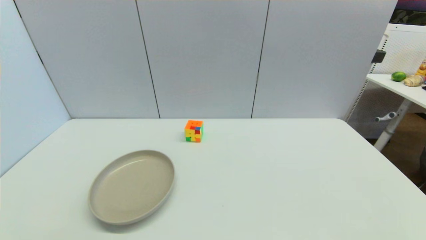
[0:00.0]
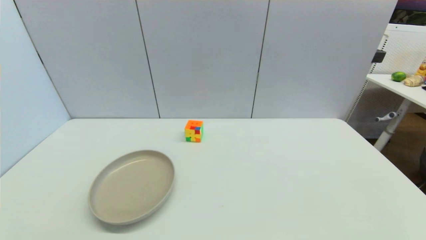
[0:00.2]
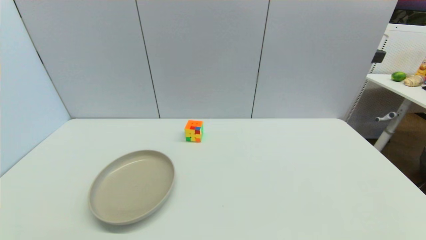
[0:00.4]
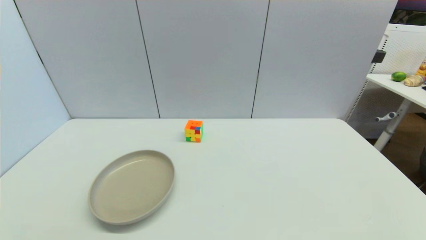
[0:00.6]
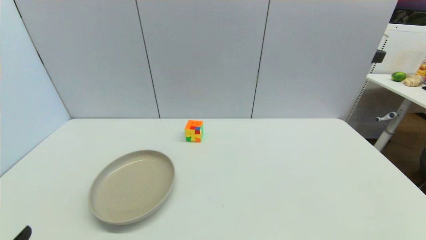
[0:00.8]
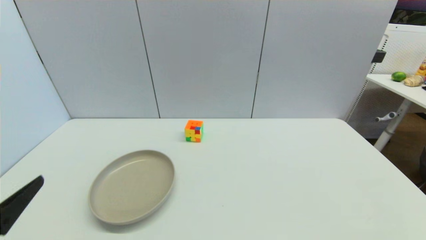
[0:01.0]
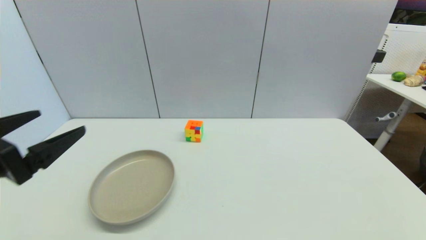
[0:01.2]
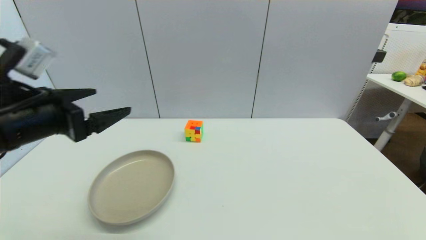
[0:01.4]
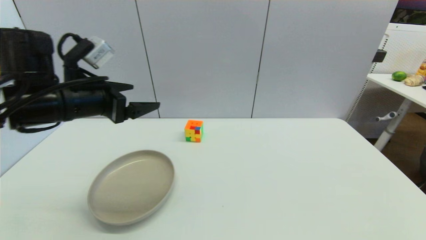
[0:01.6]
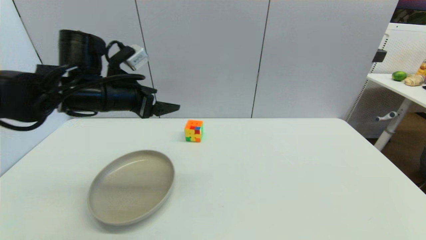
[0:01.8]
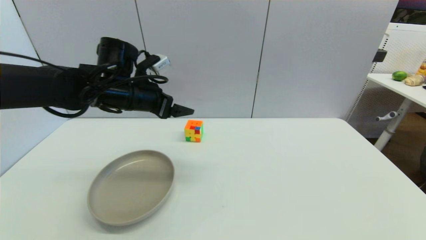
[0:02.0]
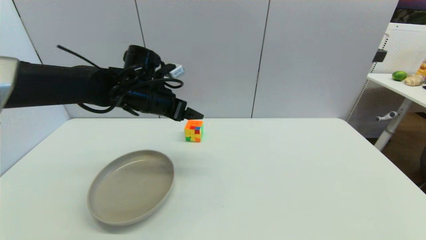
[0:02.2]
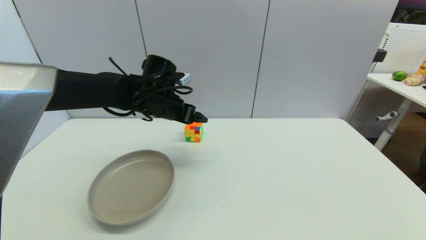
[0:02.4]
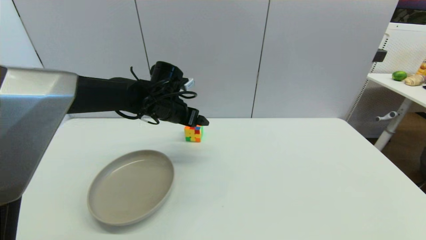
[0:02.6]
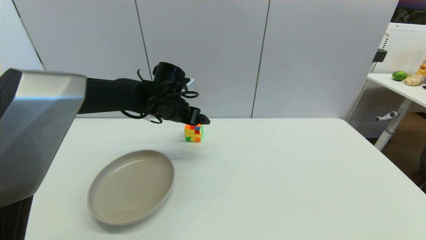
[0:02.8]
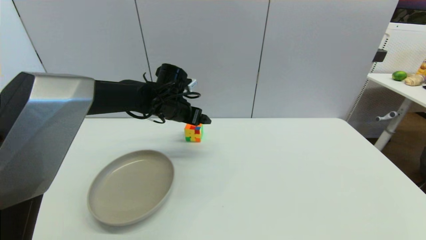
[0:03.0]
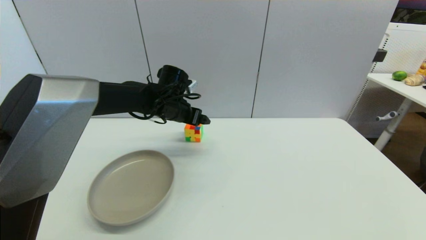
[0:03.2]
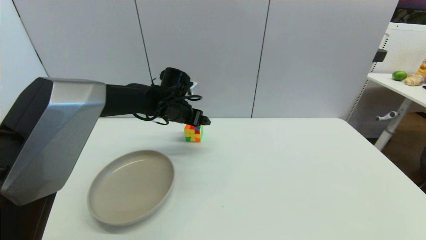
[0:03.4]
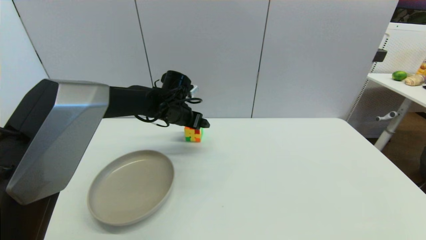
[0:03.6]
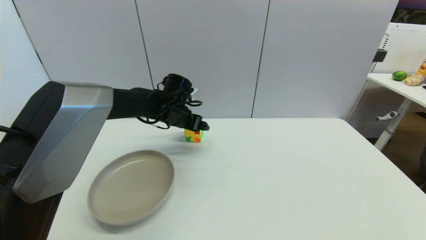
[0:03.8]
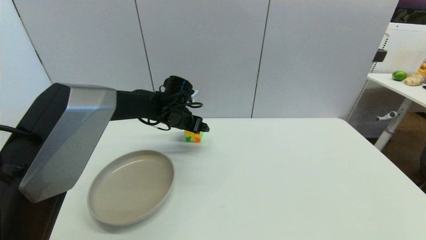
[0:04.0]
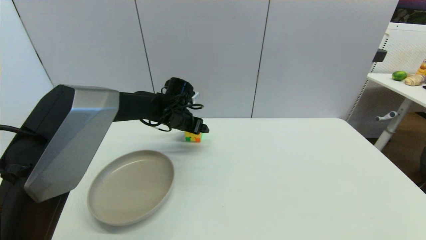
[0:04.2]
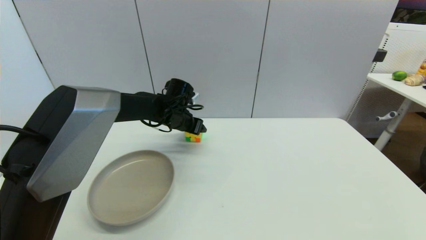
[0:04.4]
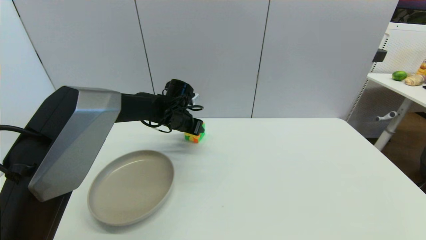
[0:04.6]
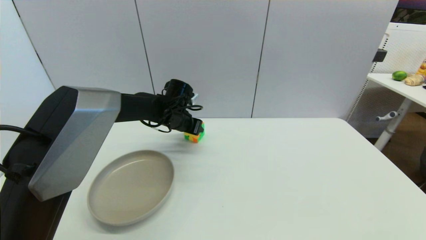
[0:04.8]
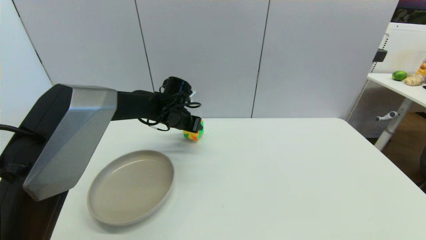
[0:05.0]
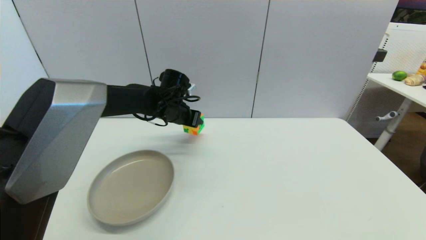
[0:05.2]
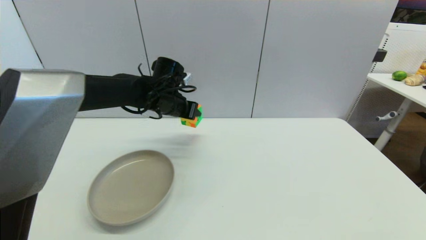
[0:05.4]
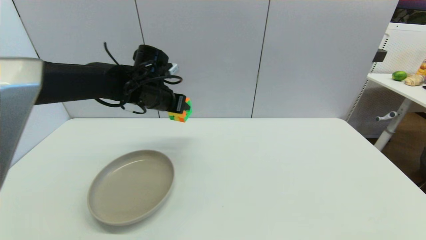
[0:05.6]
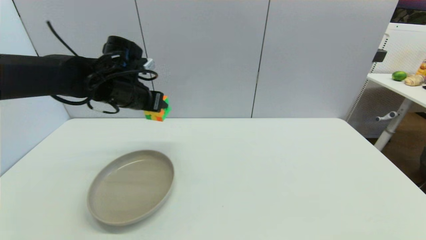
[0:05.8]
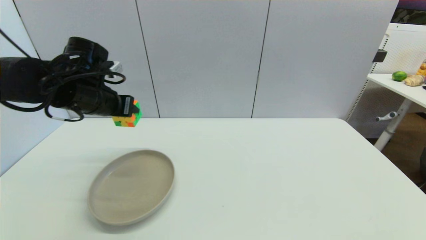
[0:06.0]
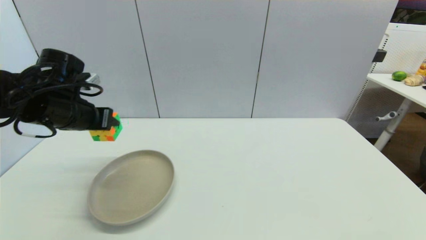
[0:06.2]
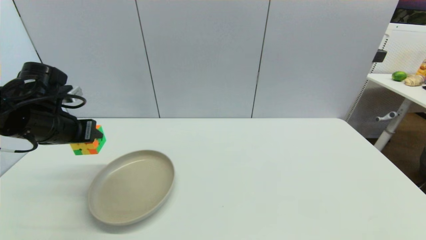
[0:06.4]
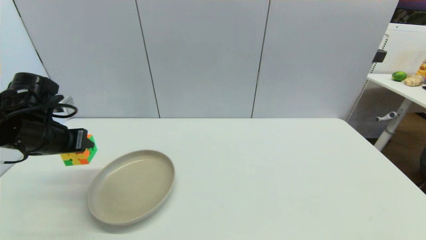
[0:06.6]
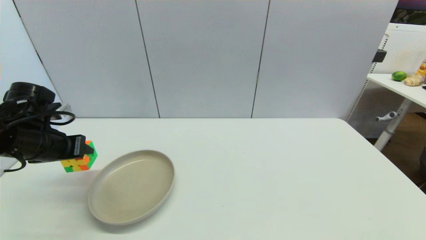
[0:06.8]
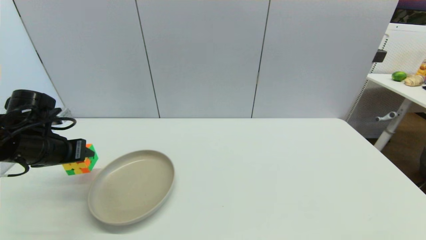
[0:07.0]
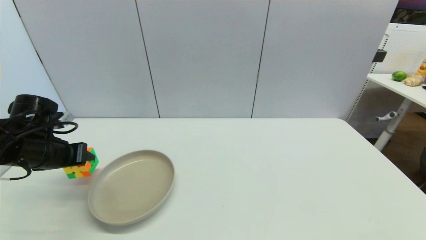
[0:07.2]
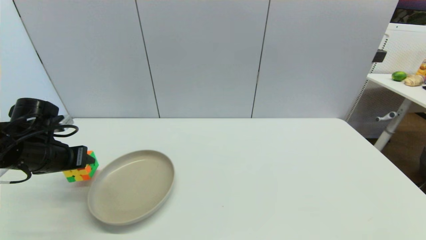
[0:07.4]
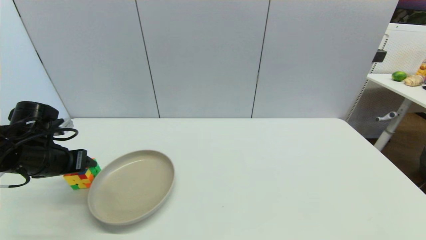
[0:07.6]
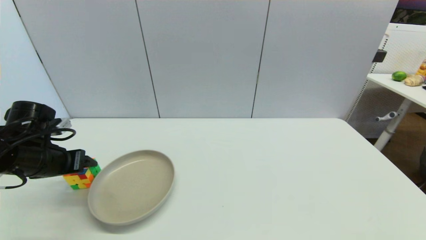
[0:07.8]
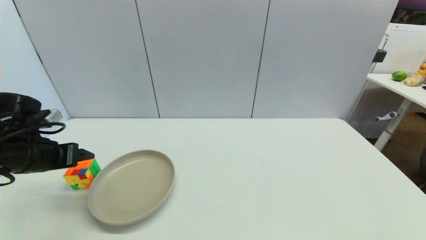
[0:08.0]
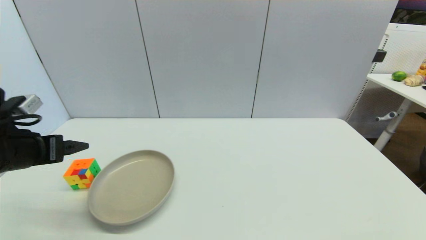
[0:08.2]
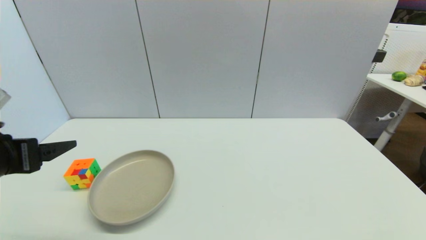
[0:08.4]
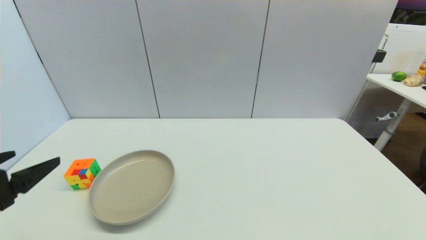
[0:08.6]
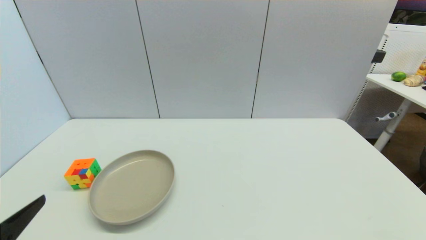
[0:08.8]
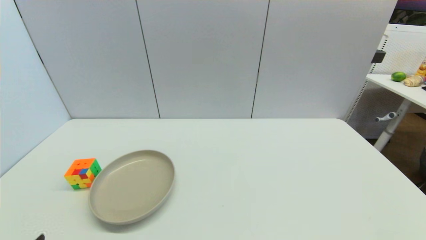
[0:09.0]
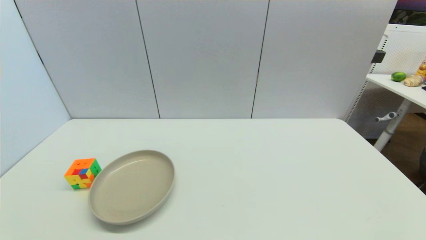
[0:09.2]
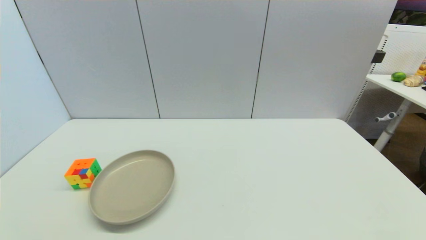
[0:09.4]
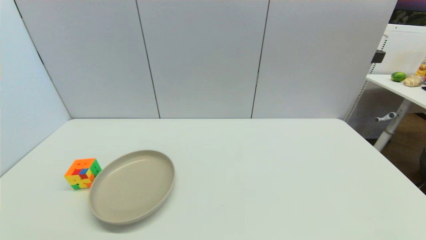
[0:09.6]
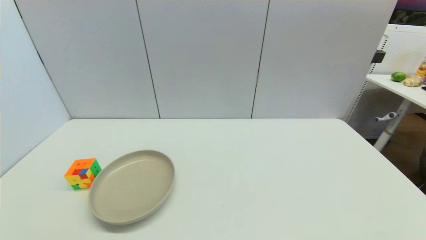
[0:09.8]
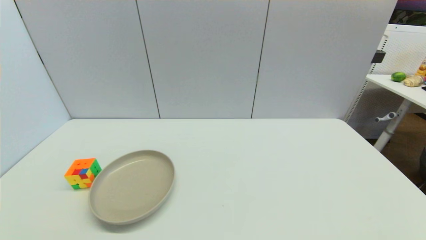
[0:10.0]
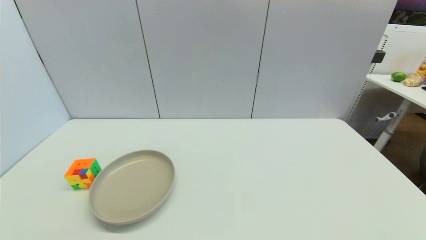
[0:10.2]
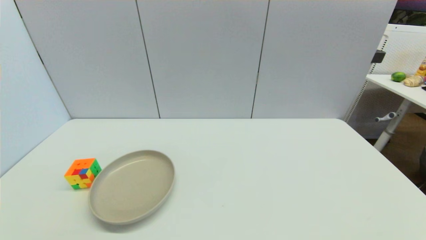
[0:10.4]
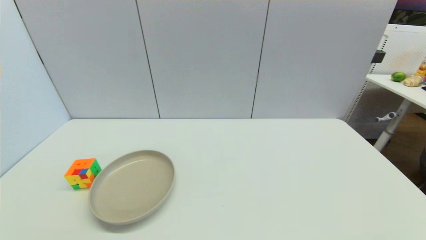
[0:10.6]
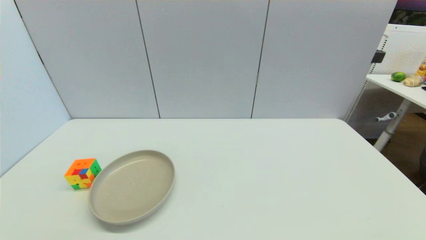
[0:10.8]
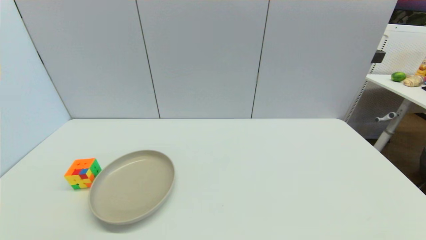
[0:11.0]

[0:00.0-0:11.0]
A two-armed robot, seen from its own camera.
Step, 0:00.8 to 0:04.4: Grasp the magic cube with left gripper.
Step, 0:04.8 to 0:08.0: Place the magic cube on the table with left gripper.
0:00.0 to 0:01.6: The left gripper goes approximately 35 cm forward and upward.
0:01.6 to 0:03.2: The left gripper heads forward, to the right and downward, covering approximately 20 cm.
0:03.2 to 0:04.8: The left gripper closes up.
0:04.8 to 0:06.2: The left gripper shifts approximately 25 cm to the left, backward and upward.
0:06.2 to 0:07.8: The left gripper moves downward, some 5 cm, and opens up.
0:07.8 to 0:09.4: The left gripper is displaced backward by approximately 25 cm, and opens its fingers.

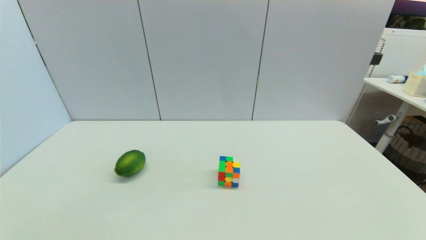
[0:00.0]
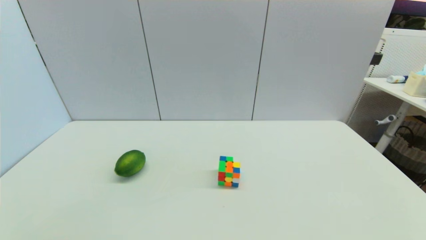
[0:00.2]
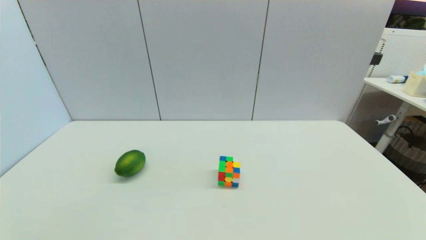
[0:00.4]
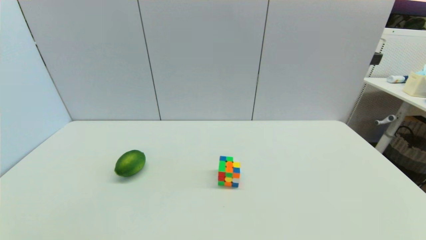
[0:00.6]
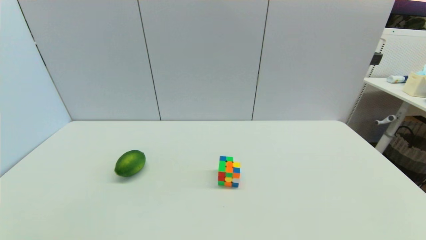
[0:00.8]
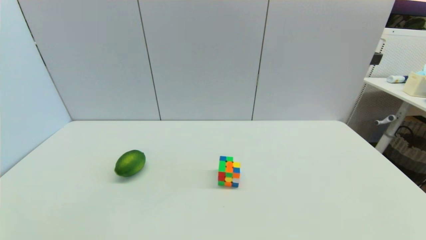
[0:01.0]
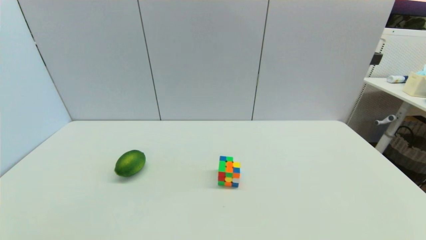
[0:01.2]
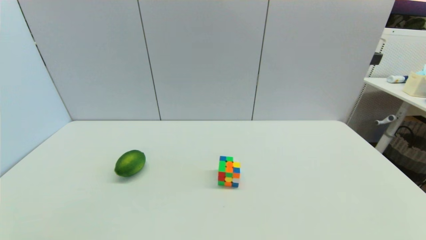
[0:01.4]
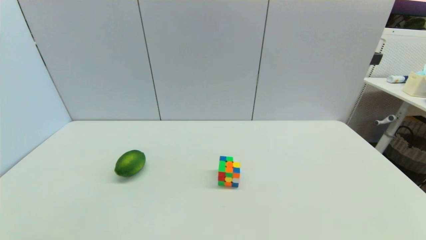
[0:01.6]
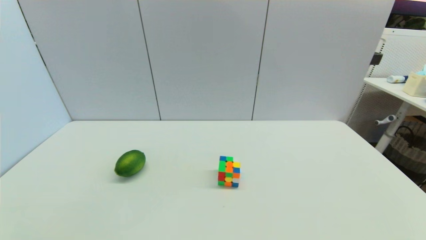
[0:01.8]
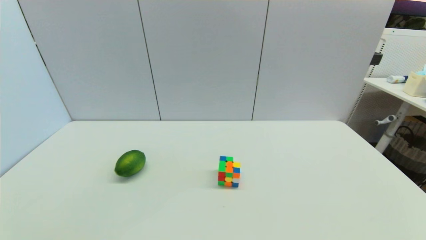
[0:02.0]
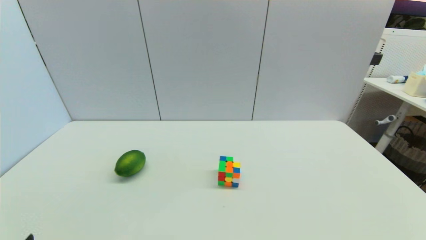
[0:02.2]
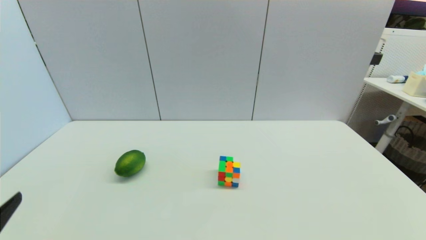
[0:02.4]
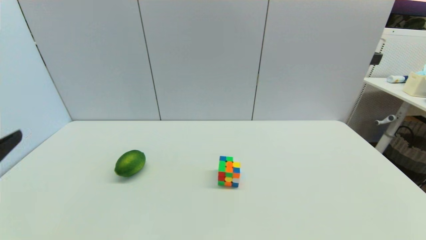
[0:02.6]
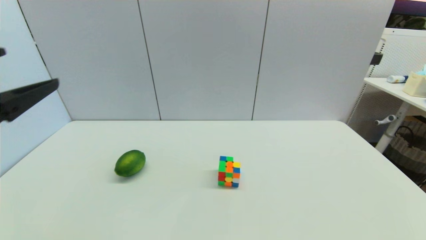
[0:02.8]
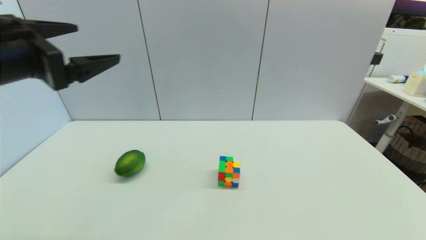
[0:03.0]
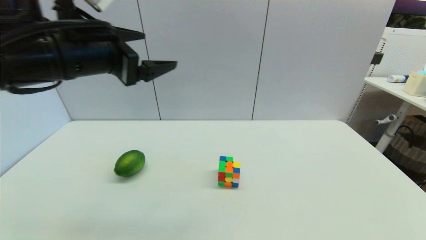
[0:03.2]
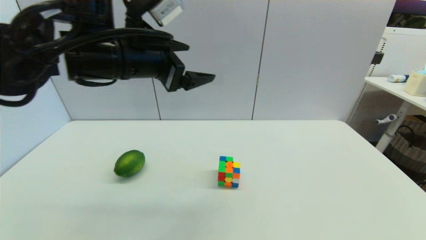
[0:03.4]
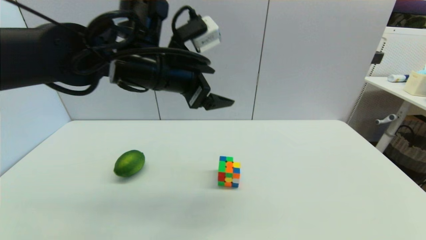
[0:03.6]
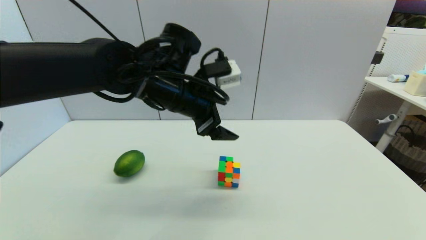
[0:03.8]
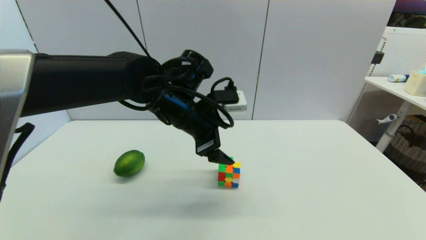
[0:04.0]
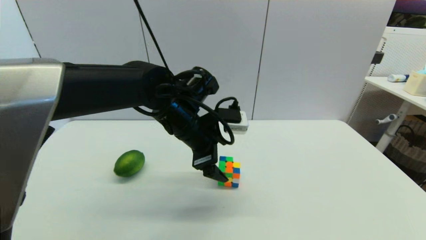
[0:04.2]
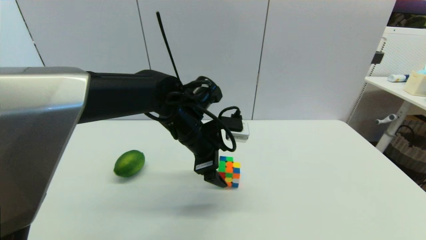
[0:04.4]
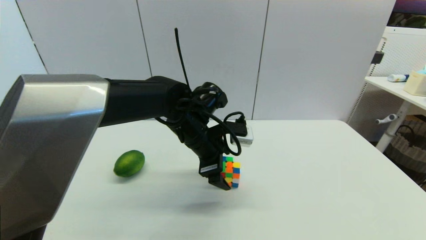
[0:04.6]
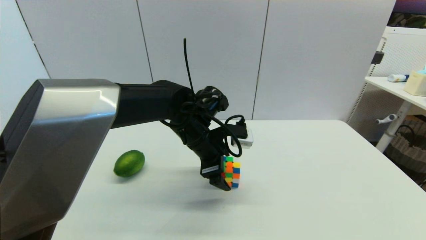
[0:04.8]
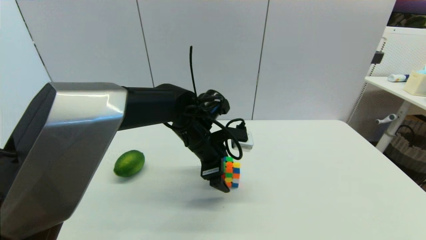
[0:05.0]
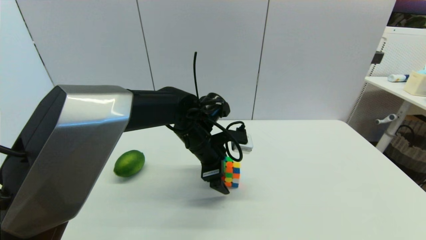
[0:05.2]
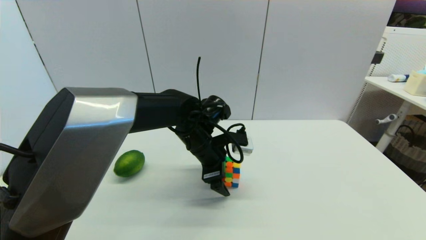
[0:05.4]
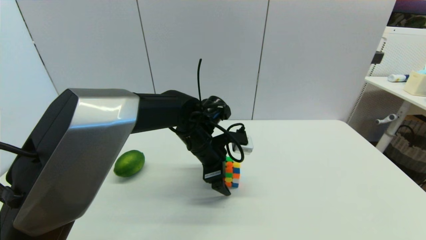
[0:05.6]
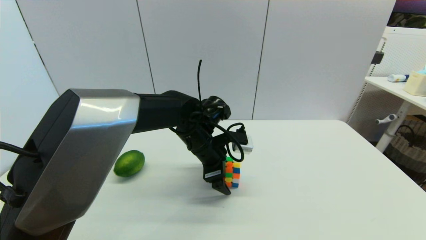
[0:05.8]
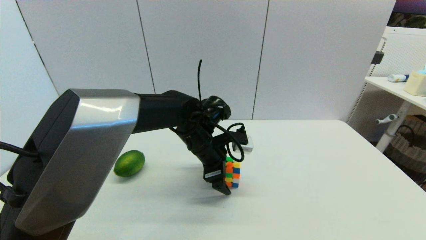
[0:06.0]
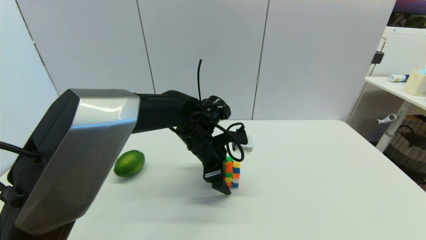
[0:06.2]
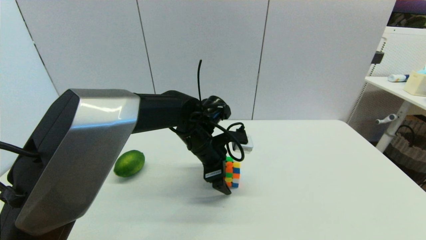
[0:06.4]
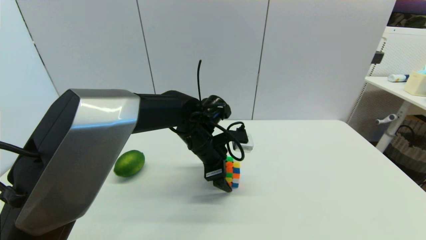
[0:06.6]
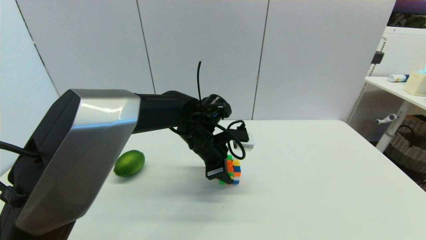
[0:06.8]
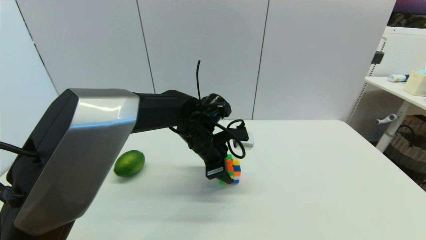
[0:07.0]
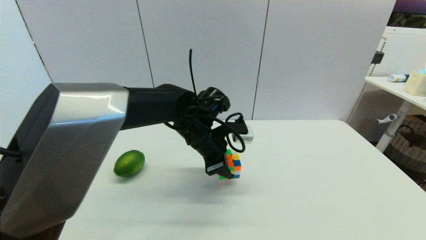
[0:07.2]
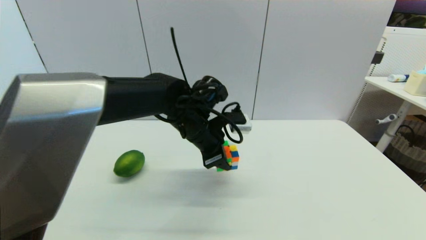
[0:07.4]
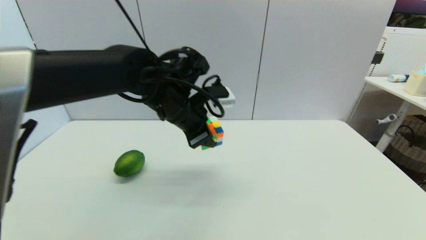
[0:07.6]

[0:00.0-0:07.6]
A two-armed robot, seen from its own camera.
Step, 0:02.4 to 0:06.8: Grasp the magic cube with left gripper.
0:01.6 to 0:03.0: The left gripper moves upward and forward, roughly 35 cm.
0:03.0 to 0:04.6: The left gripper heads to the right, downward and forward, covering approximately 30 cm.
0:04.6 to 0:06.0: The grippers move only a little.
0:06.0 to 0:07.6: The left gripper is displaced upward and to the left by approximately 15 cm, and closes up.
